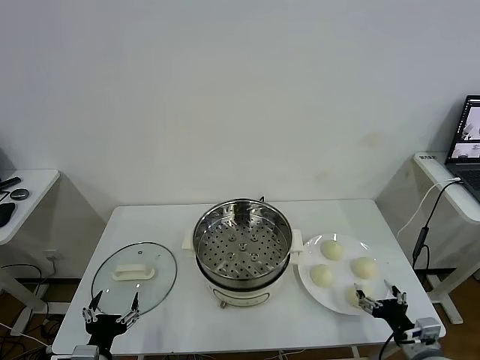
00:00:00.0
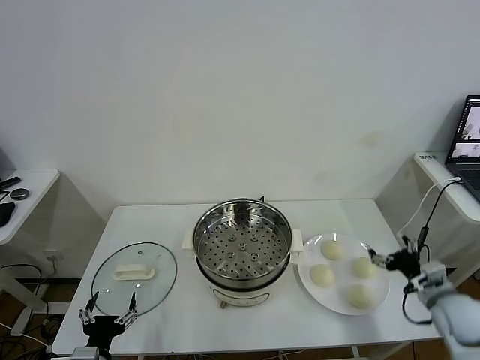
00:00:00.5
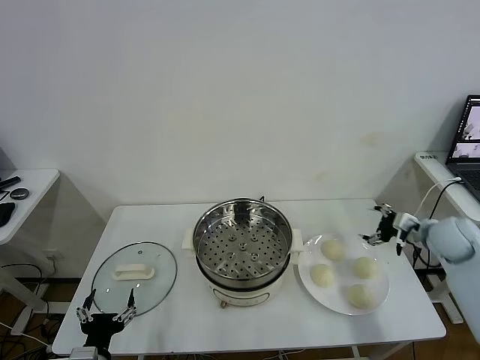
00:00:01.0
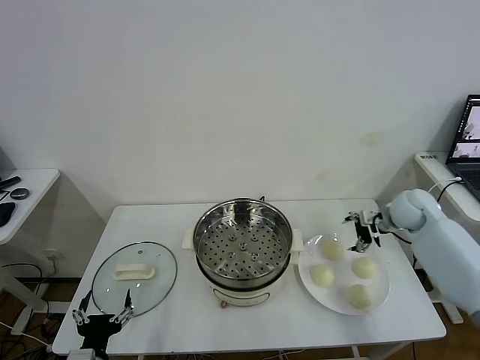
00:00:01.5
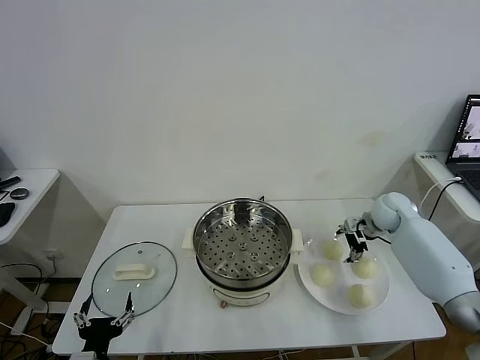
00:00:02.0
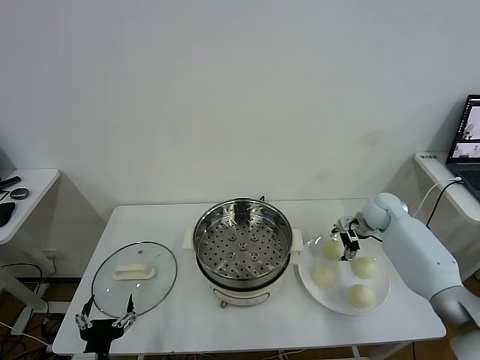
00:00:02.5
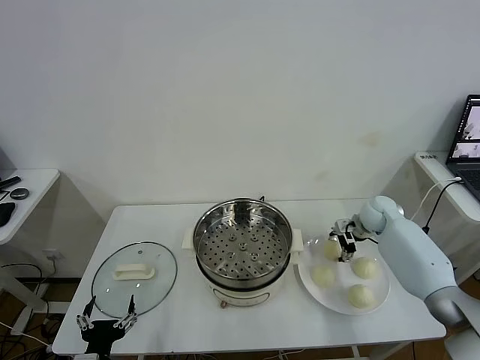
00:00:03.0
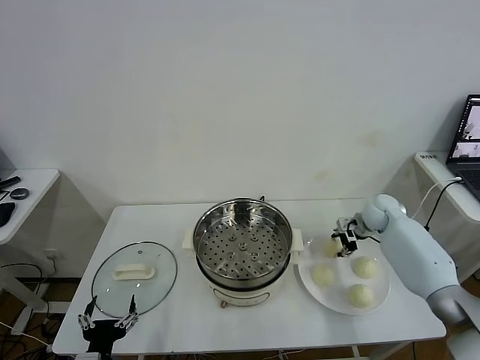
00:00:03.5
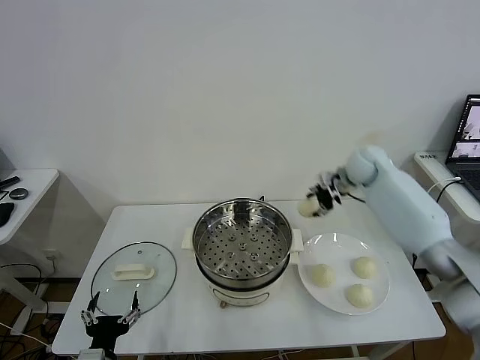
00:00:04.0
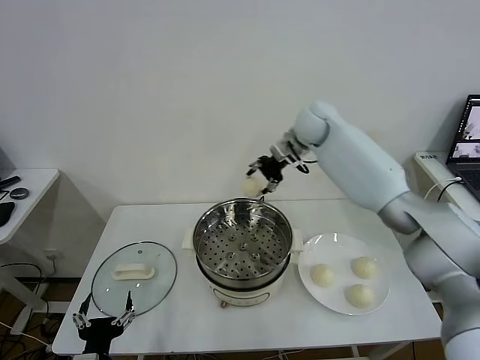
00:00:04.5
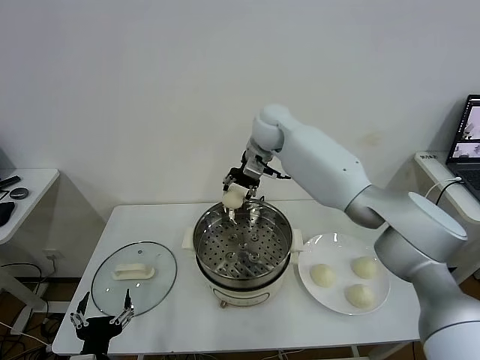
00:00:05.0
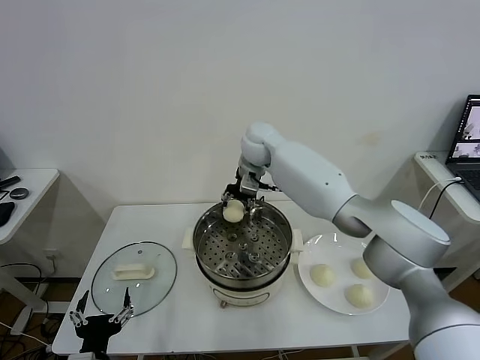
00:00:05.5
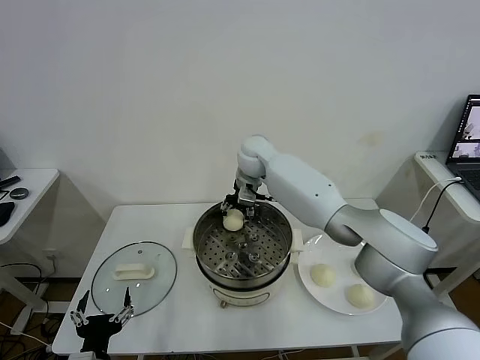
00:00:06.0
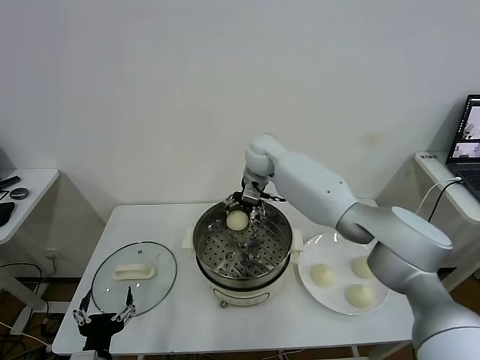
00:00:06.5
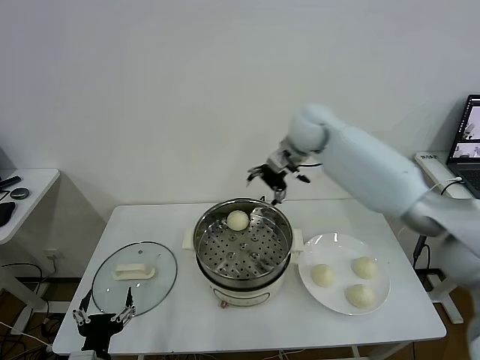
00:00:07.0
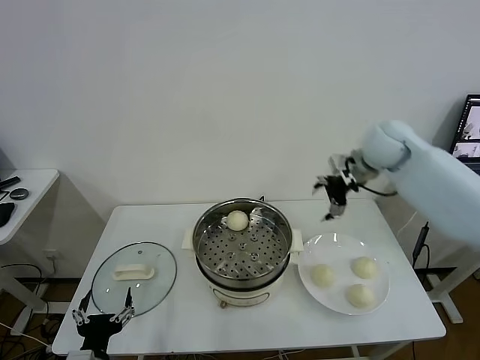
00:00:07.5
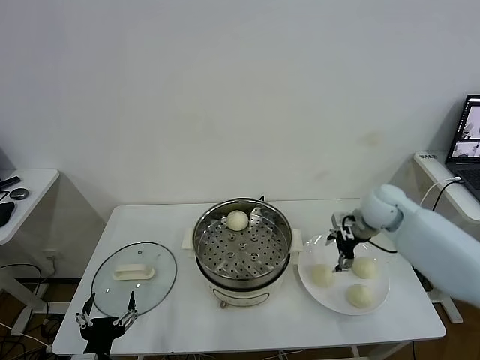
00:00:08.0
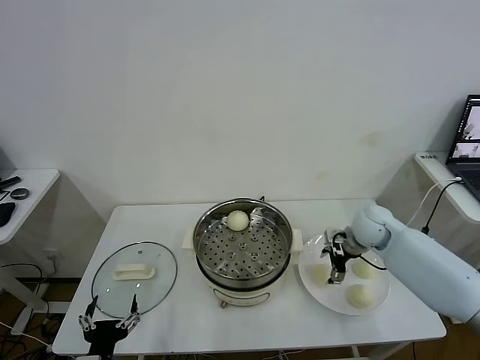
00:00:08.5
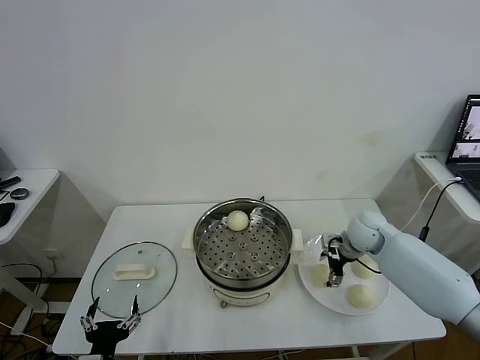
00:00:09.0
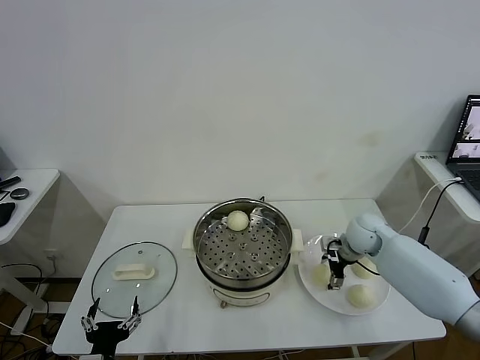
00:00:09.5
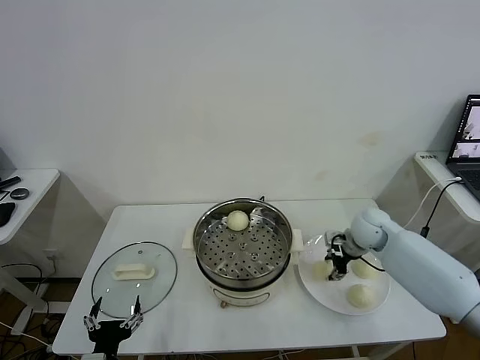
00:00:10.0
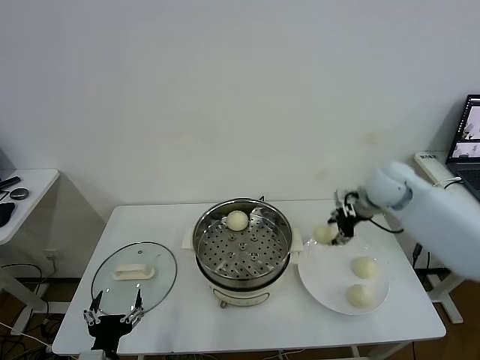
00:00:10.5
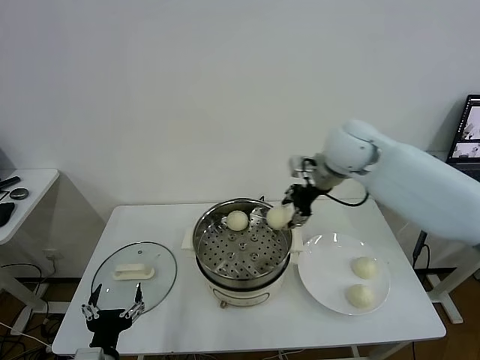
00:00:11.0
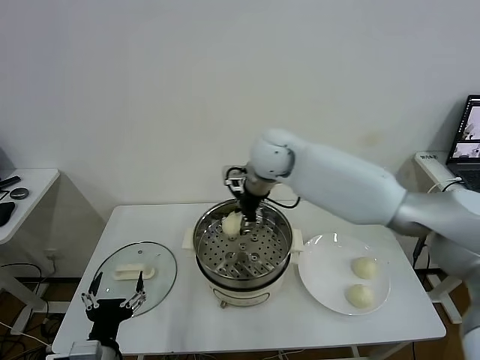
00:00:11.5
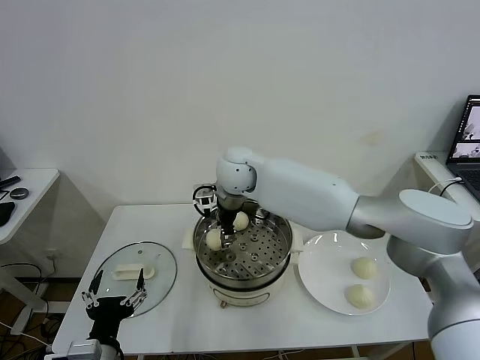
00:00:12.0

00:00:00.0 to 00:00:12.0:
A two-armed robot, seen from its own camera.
Task of the whole recording: take steamed baozi put them in steamer.
Step, 00:00:00.0 to 00:00:03.0: Grasp the baozi in the plate with right gripper.
Step, 00:00:03.5 to 00:00:06.5: Place the baozi on the steamer with right gripper.
Step, 00:00:07.0 to 00:00:09.5: Grasp the baozi in the plate with right gripper.
00:00:02.0 to 00:00:04.0: The right gripper heads upward, to the left and forward, covering roughly 20 cm, and closes.
00:00:04.0 to 00:00:06.0: The right gripper shifts some 25 cm to the left, and opens its fingers.
00:00:06.0 to 00:00:08.0: The right gripper travels to the right and backward by approximately 30 cm, and opens its fingers.
00:00:08.0 to 00:00:10.0: The right gripper closes.
00:00:10.0 to 00:00:12.0: The right gripper shifts approximately 35 cm to the left. Meanwhile the left gripper goes roughly 5 cm upward.

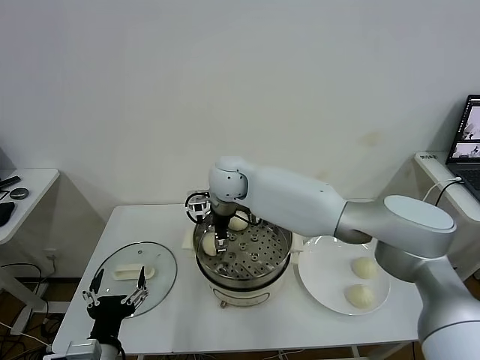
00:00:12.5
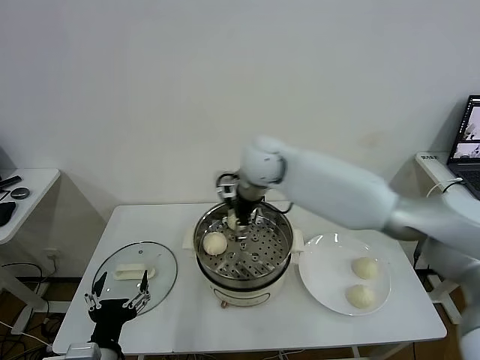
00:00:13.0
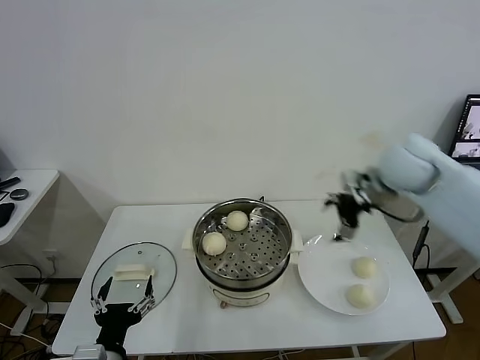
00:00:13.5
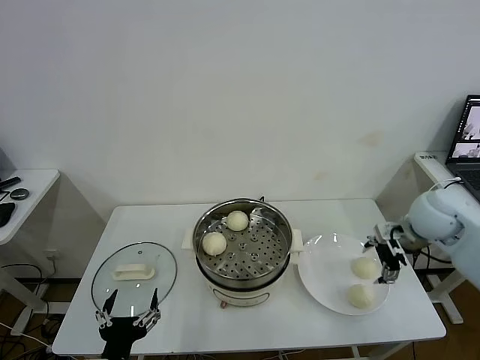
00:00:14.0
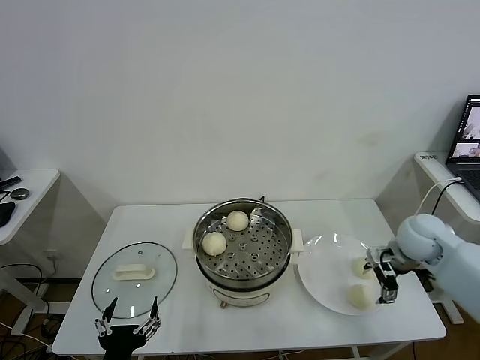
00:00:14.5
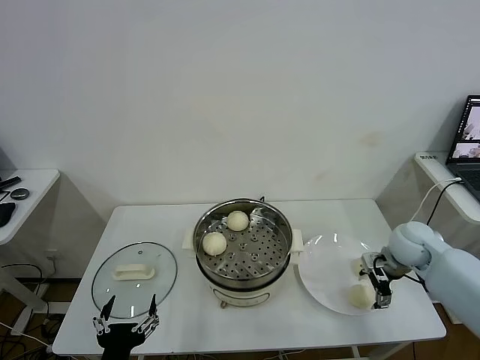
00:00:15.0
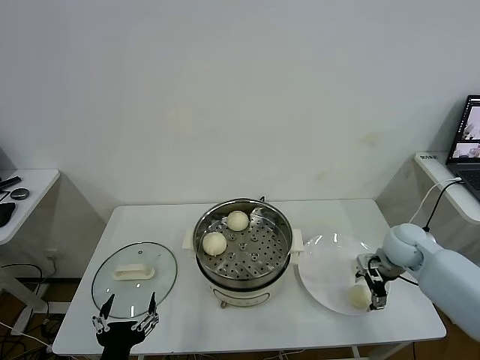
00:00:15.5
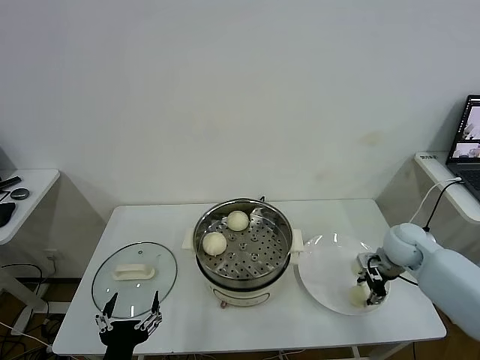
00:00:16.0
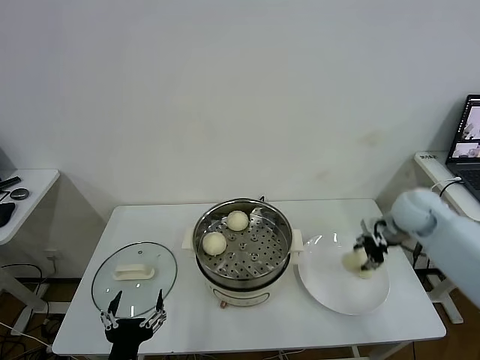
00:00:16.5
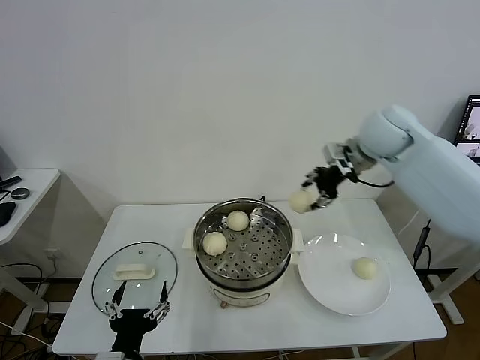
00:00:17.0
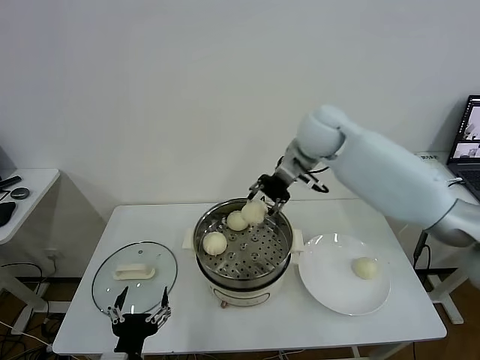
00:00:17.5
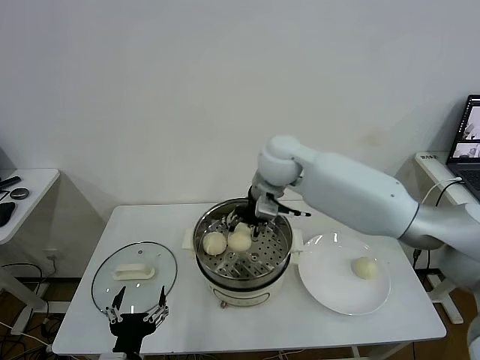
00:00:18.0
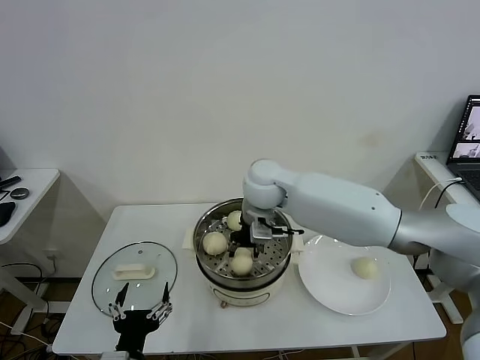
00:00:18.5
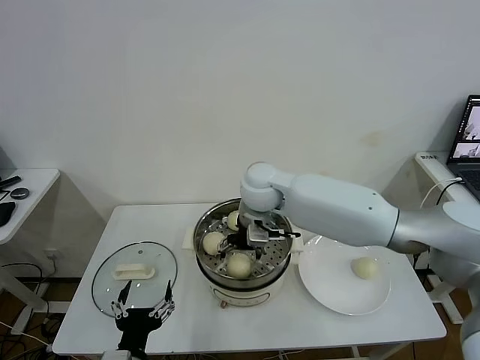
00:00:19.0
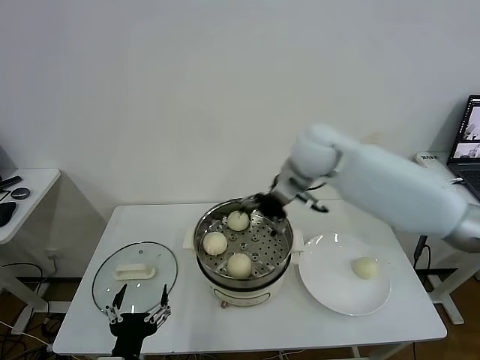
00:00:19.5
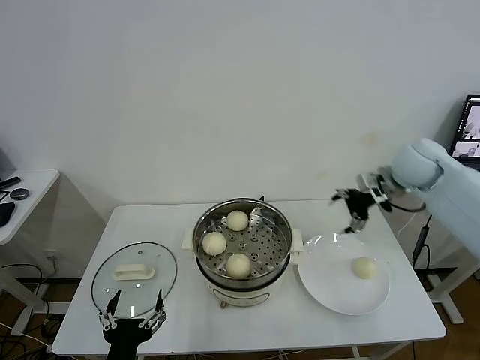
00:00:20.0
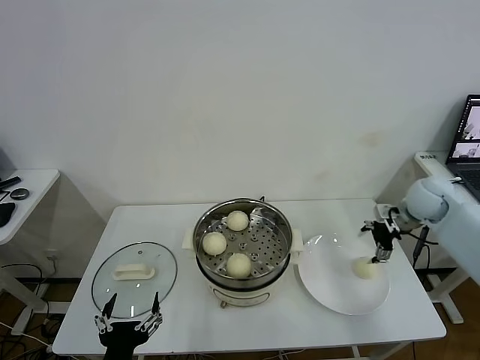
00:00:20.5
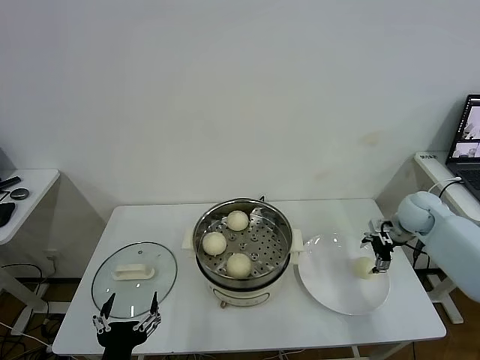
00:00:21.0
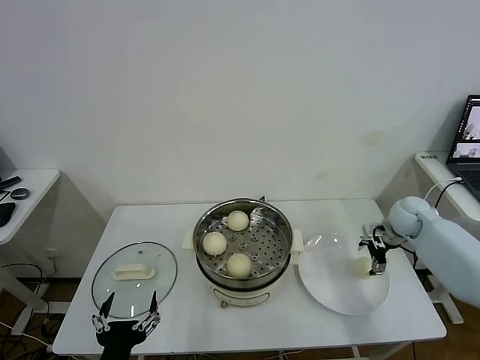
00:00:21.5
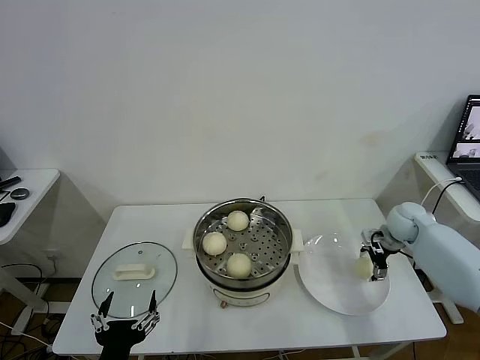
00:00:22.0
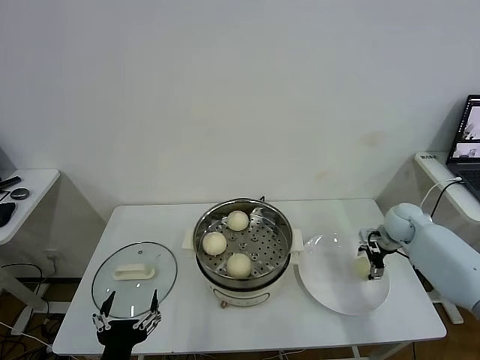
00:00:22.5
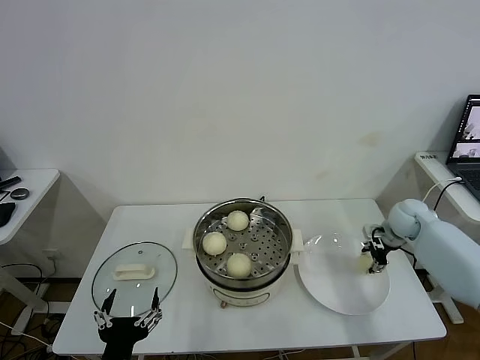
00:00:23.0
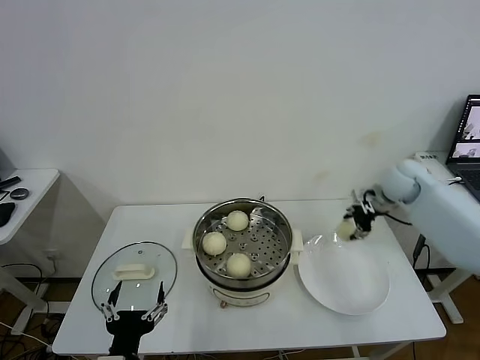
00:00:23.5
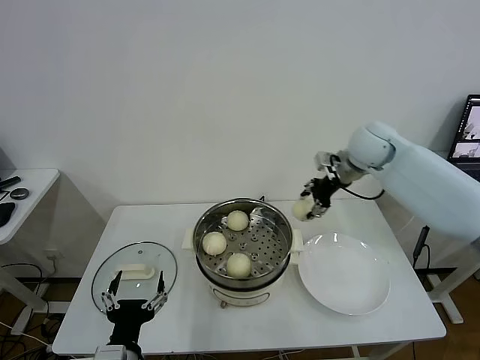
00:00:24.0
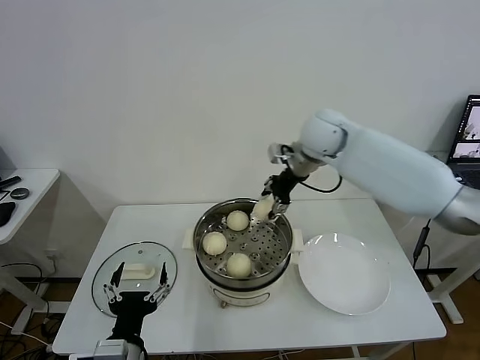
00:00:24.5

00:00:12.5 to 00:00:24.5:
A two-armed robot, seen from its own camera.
Task of the whole recording: take steamed baozi put them in steamer.
Step, 00:00:13.0 to 00:00:15.5: Grasp the baozi in the plate with right gripper.
Step, 00:00:16.5 to 00:00:19.0: Place the baozi on the steamer with right gripper.
Step, 00:00:19.5 to 00:00:22.5: Grasp the baozi in the plate with right gripper.
00:00:12.5 to 00:00:14.5: The right gripper shifts approximately 40 cm to the right.
00:00:14.5 to 00:00:16.5: The right gripper moves upward and forward, roughly 10 cm, and closes up.
00:00:16.5 to 00:00:18.5: The right gripper goes about 35 cm to the left.
00:00:18.5 to 00:00:20.5: The right gripper heads to the right, covering roughly 40 cm, and opens.
00:00:20.5 to 00:00:22.5: The right gripper heads downward, covering some 10 cm.
00:00:22.5 to 00:00:24.5: The right gripper is displaced to the left and upward by about 35 cm, and closes its fingers.

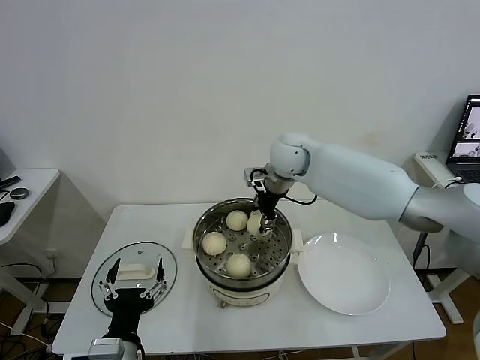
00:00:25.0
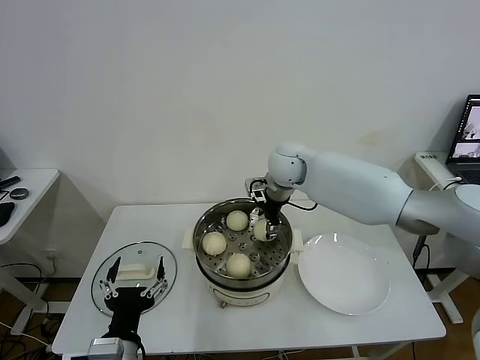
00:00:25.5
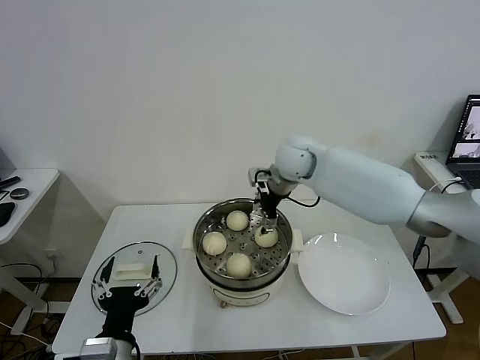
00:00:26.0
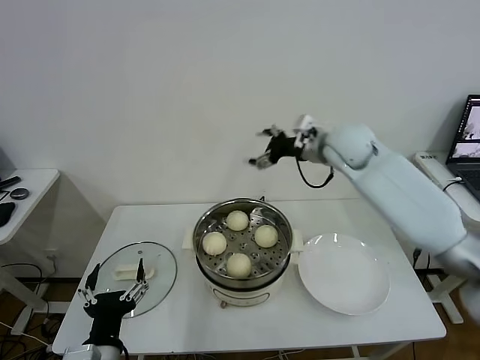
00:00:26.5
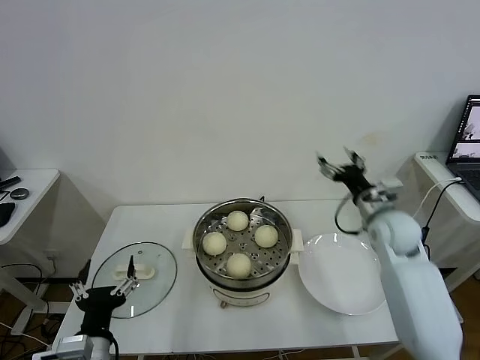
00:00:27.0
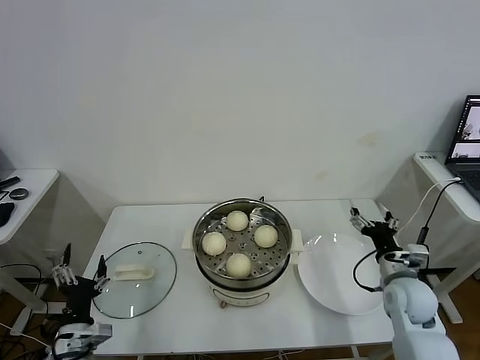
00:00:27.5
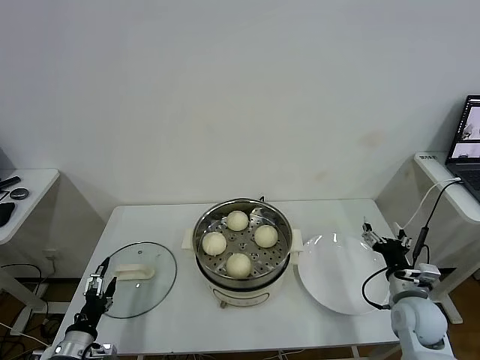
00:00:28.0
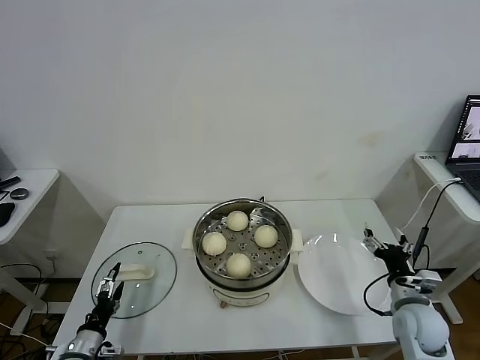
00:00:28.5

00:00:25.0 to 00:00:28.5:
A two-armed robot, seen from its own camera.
Task of the whole recording: take steamed baozi put them in steamer.
00:00:25.0 to 00:00:27.0: The right gripper shifts roughly 30 cm to the right, backward and downward, and opens. Meanwhile the left gripper moves some 5 cm.
00:00:27.0 to 00:00:28.5: The left gripper moves downward, to the left and forward, approximately 20 cm. Meanwhile the right gripper goes roughly 20 cm backward and downward.
